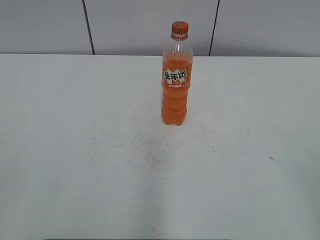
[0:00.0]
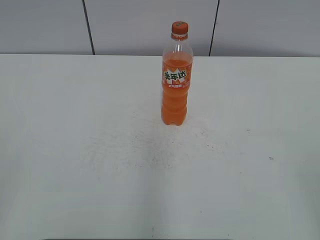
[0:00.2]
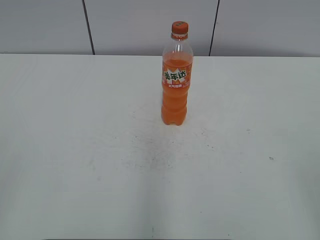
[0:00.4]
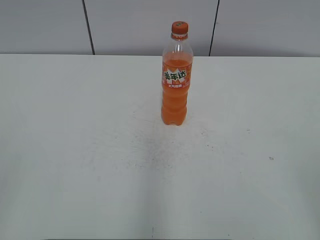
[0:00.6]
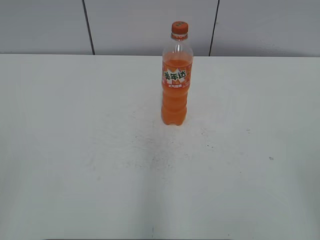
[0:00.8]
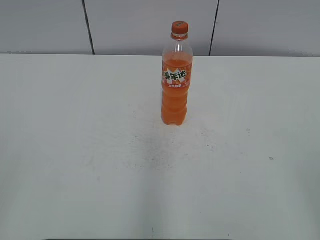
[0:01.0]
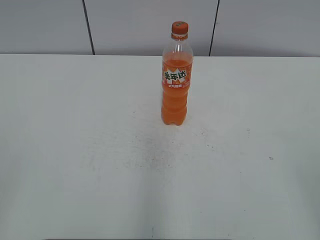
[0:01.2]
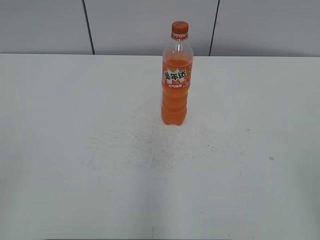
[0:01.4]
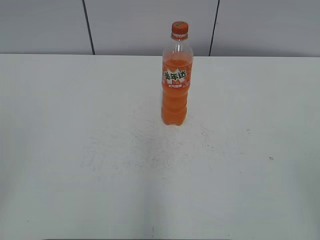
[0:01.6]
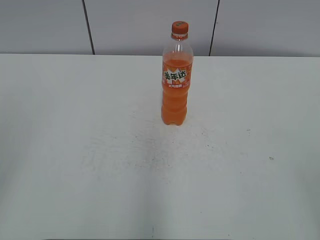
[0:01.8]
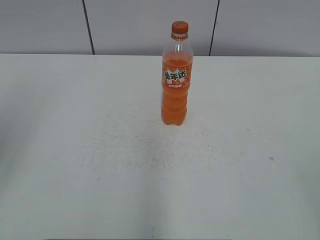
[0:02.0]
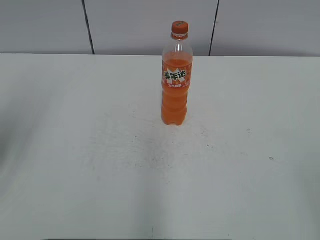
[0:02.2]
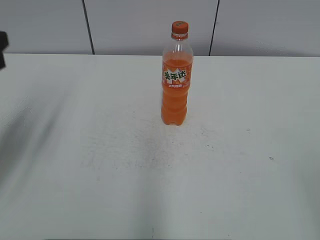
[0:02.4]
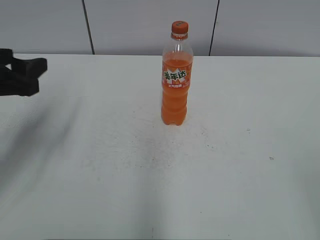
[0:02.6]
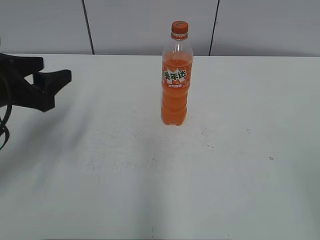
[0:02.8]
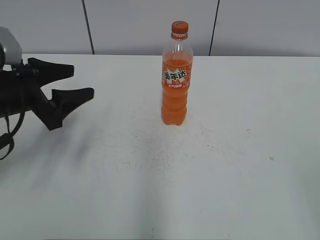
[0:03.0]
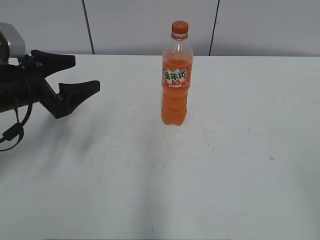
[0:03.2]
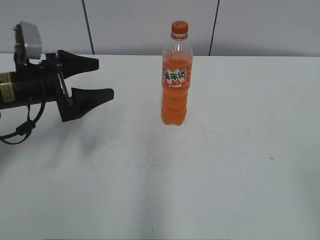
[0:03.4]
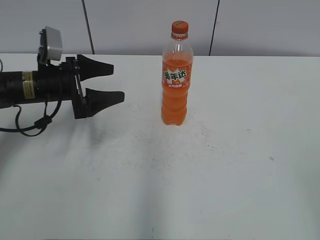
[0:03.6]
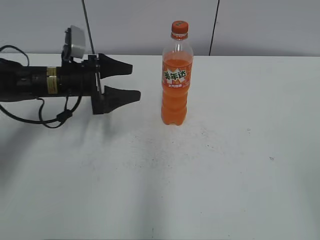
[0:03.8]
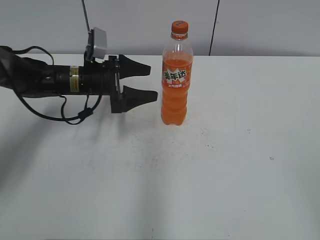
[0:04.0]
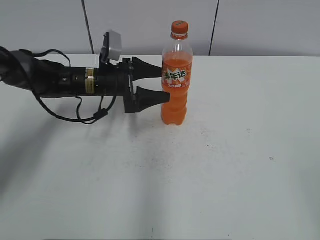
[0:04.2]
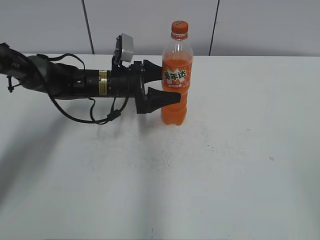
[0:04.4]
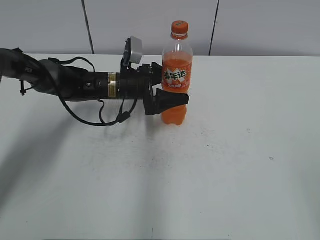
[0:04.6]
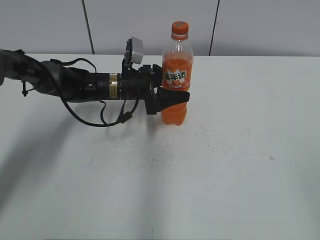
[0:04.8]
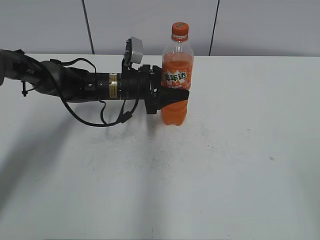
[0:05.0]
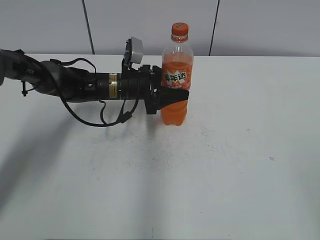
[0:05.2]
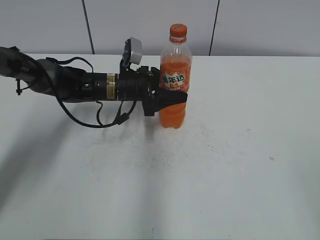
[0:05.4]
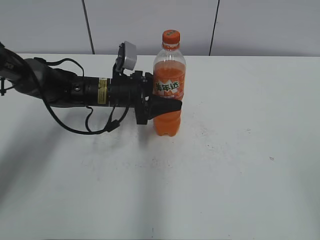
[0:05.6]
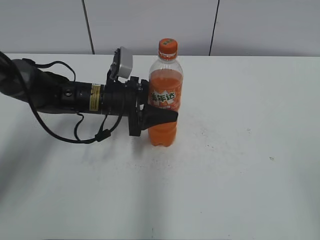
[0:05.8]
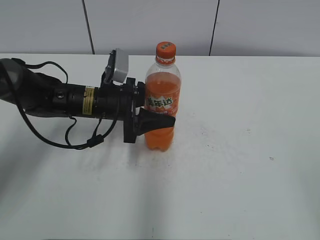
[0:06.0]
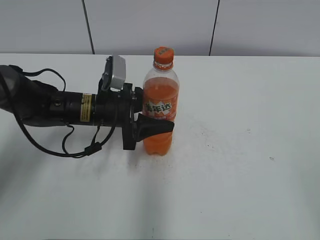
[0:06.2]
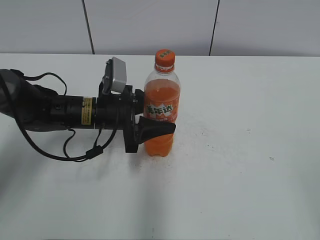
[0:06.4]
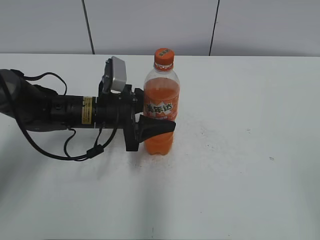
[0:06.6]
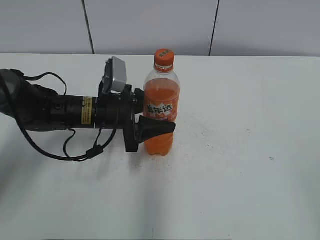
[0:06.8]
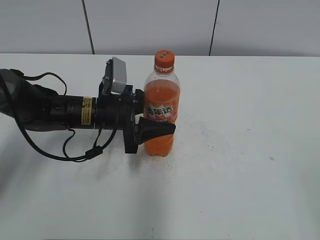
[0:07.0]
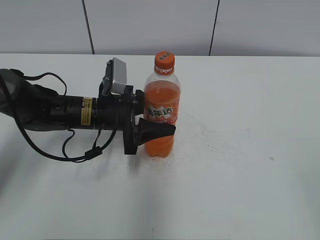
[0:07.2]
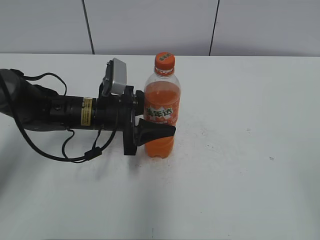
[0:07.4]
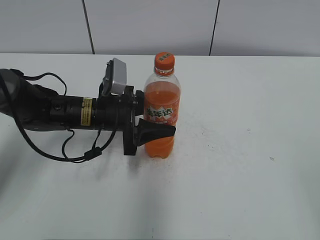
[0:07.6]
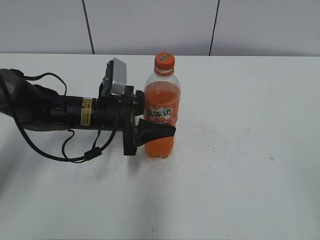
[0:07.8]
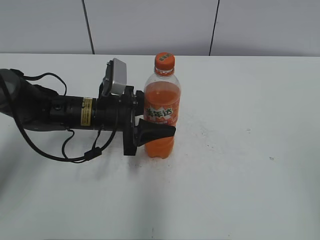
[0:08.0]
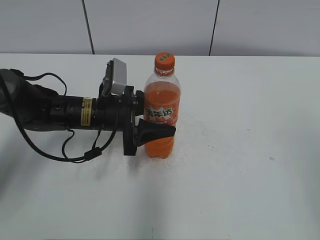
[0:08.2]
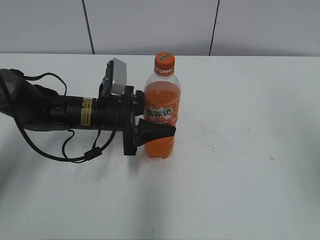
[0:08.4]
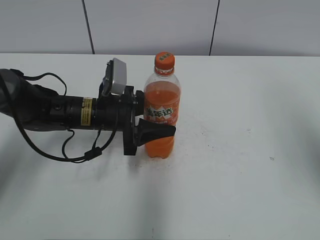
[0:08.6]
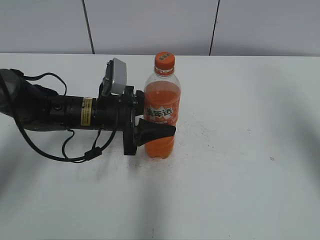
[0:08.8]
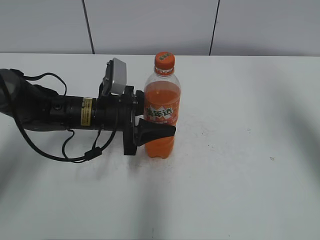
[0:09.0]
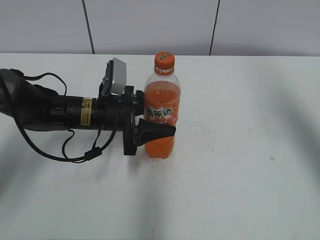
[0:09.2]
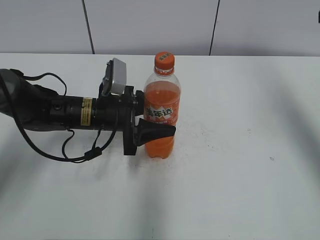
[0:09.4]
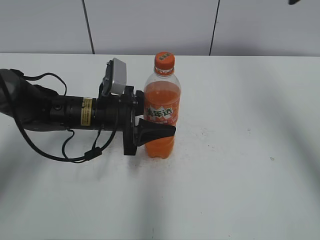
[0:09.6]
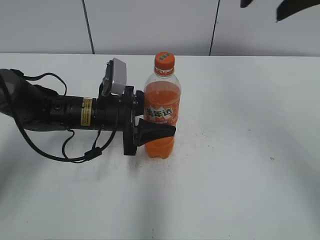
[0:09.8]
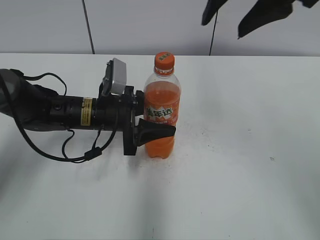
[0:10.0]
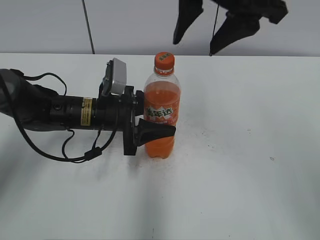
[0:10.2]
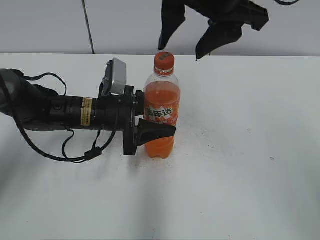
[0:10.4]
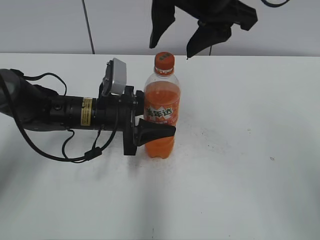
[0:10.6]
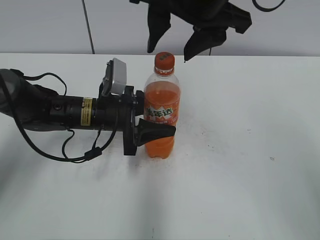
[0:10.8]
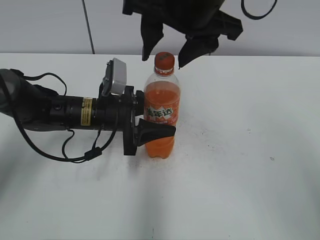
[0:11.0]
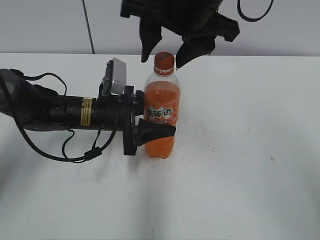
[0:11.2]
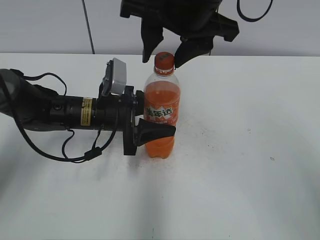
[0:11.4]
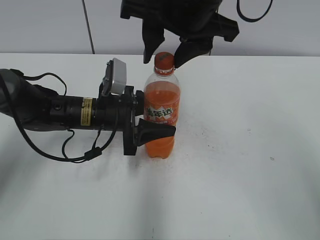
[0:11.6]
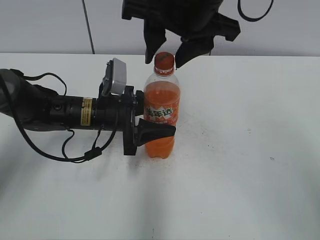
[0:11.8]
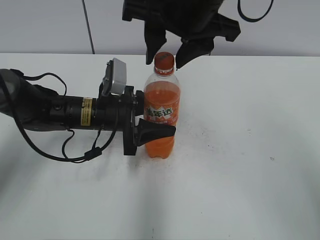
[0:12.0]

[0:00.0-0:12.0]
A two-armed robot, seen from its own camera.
Step, 0:00.0 to 0:05.0: Grab the Mirinda with the left hand.
Step, 0:05.2 to 0:09.4: Move the Mirinda from top to bottom.
0:01.6 to 0:03.0: The left gripper goes approximately 30 cm forward and downward.
0:03.0 to 0:04.4: The left gripper moves forward, to the right and downward, roughly 20 cm, and opens.
0:04.4 to 0:06.0: The left gripper goes approximately 5 cm backward, and closes its fingers.
0:06.0 to 0:07.6: The grippers make only small movements.
0:07.6 to 0:09.0: The right gripper goes about 25 cm forward.
0:09.0 to 0:10.4: The right gripper moves to the left, approximately 20 cm.
0:10.4 to 0:12.0: The grippers make only small movements.

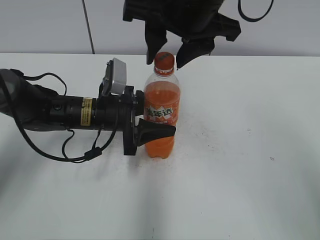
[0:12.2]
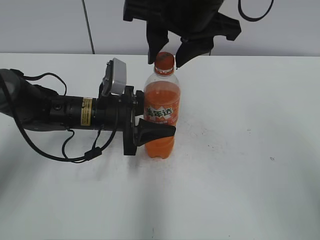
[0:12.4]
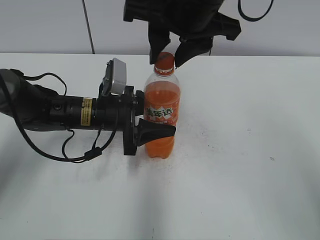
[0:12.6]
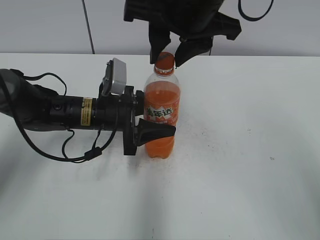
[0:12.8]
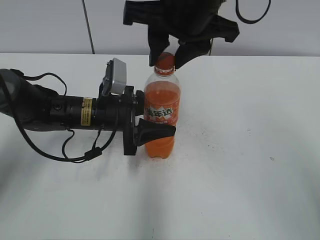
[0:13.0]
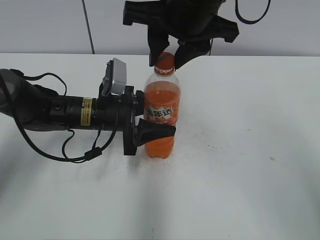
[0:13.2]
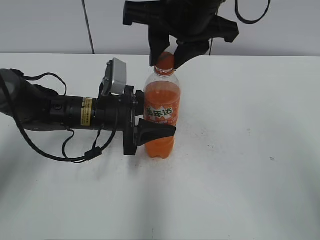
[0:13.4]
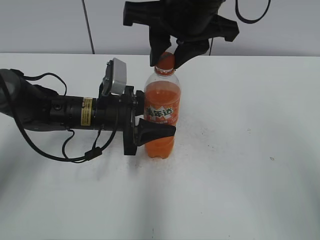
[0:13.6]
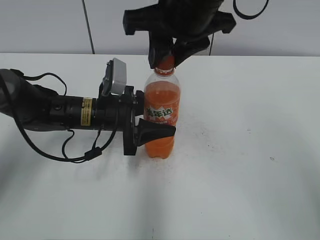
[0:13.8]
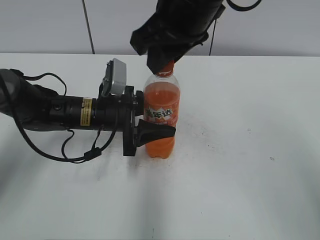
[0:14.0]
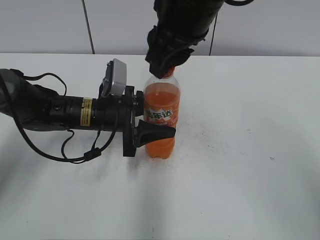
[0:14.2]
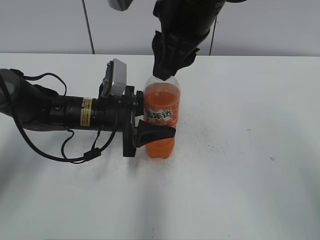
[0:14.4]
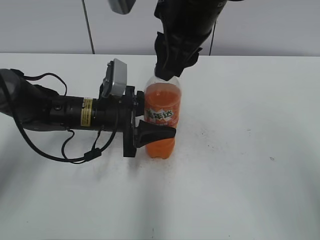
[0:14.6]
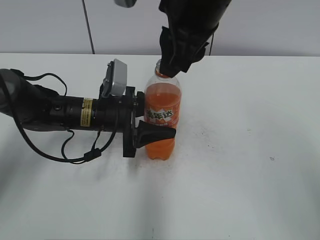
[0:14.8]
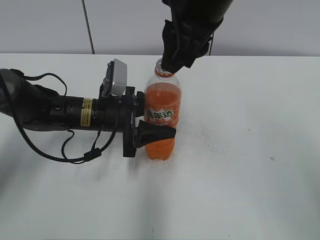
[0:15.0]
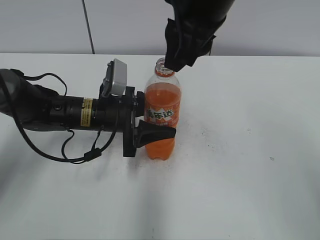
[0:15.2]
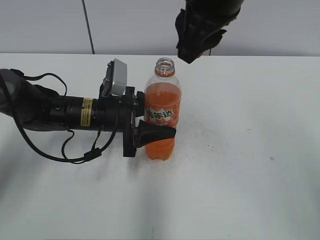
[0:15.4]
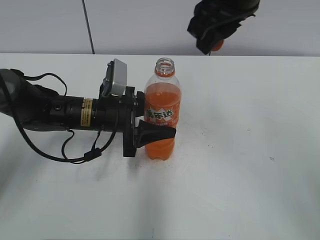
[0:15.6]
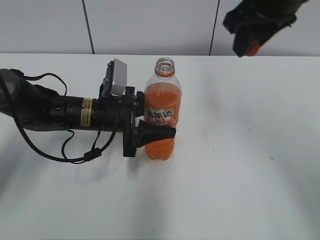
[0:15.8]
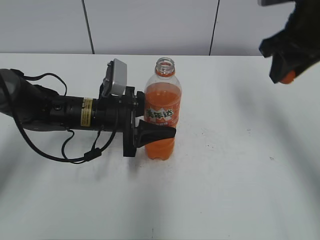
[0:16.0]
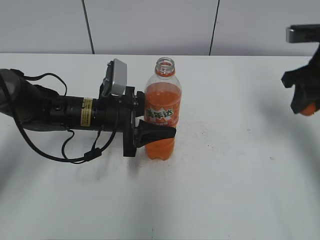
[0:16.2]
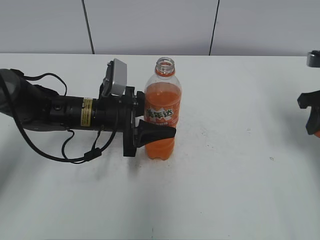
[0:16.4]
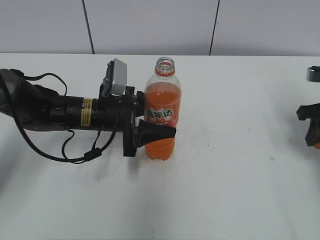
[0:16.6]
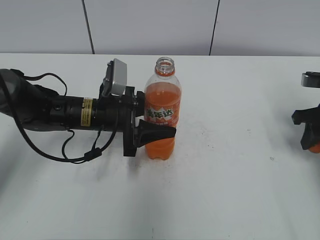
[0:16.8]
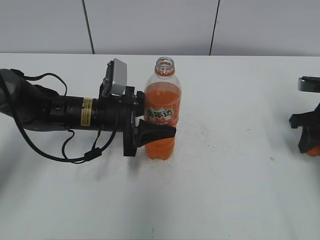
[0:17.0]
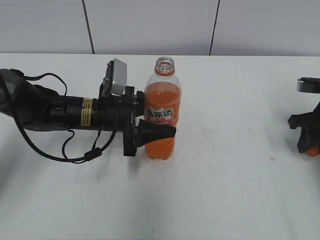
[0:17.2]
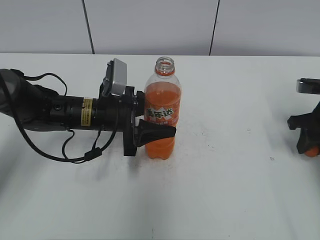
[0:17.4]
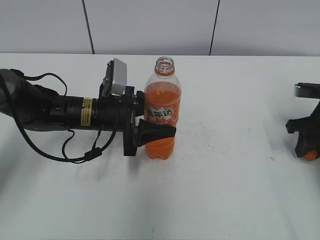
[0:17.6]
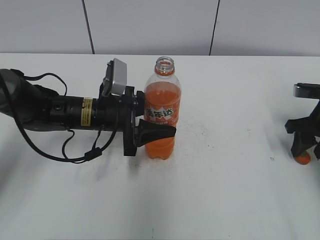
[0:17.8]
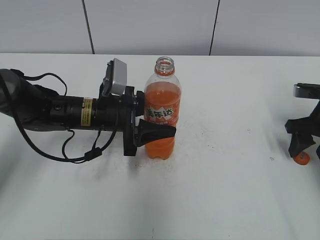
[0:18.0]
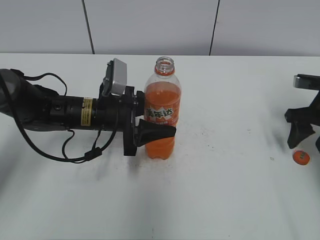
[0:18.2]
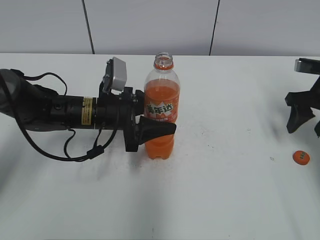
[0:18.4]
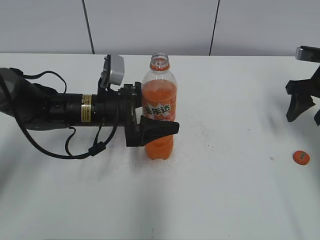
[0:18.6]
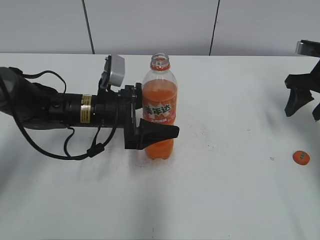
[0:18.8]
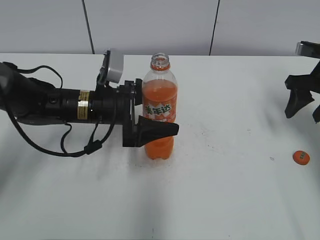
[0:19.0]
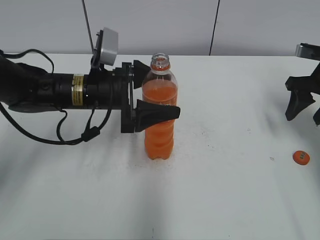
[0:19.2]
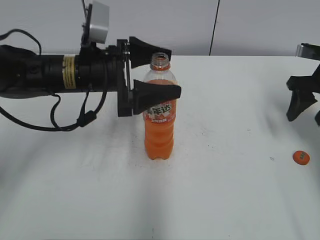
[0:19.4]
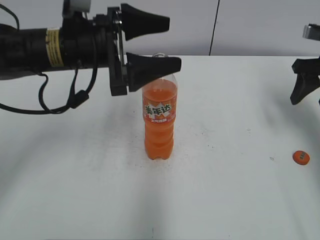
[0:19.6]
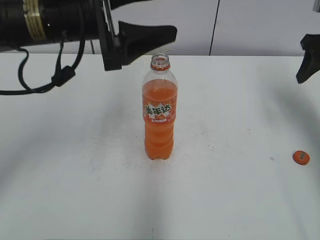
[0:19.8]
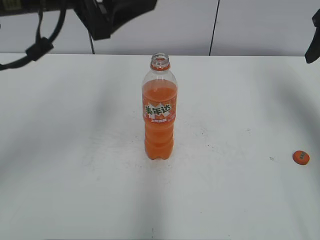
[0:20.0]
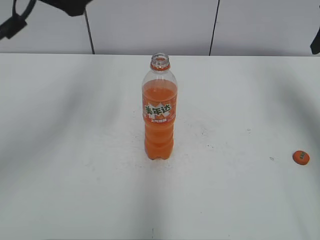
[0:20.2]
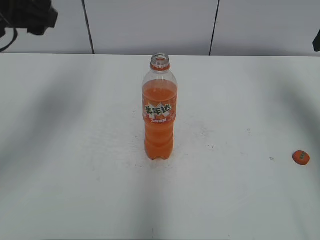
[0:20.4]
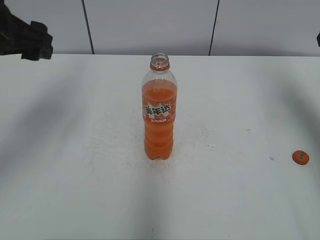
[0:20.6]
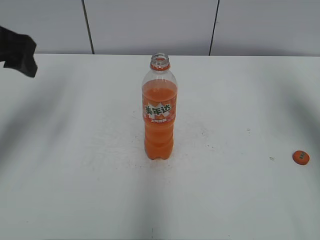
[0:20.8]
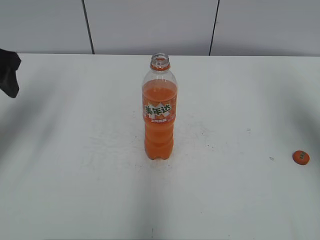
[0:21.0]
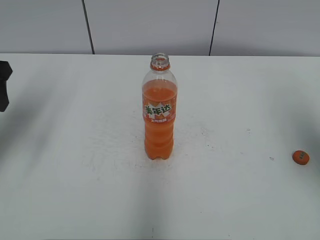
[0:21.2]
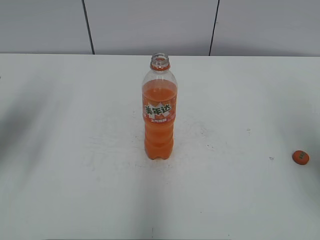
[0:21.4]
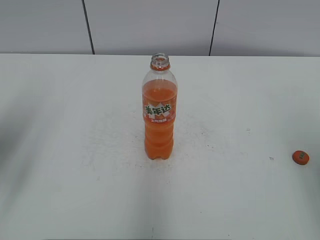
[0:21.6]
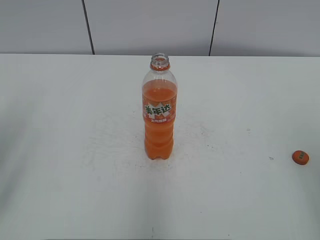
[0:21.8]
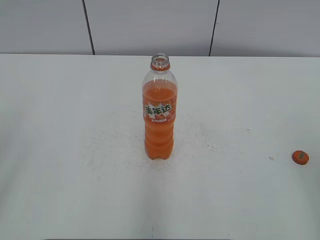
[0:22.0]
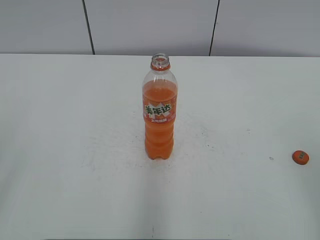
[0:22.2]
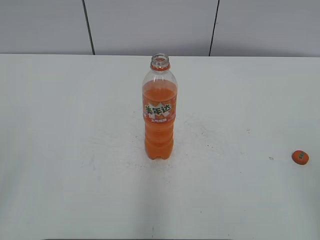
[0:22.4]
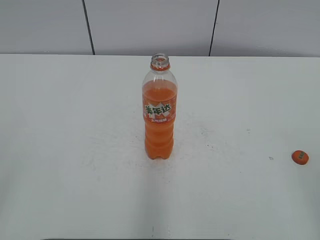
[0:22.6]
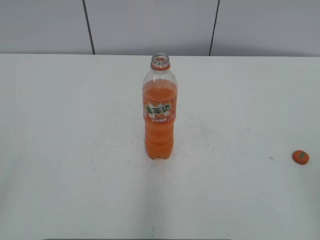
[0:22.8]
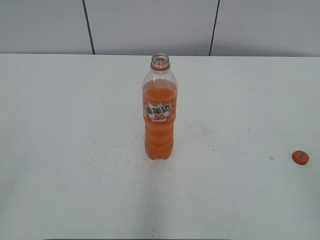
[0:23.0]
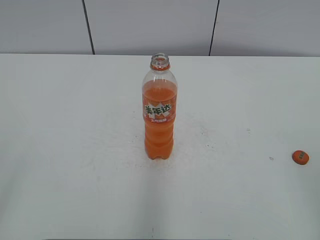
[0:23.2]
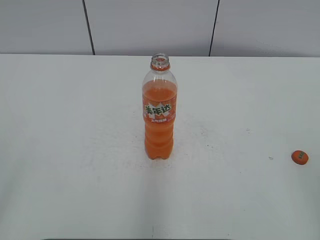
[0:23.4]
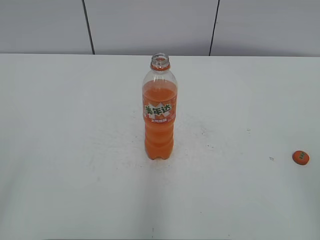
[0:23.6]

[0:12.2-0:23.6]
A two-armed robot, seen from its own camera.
Step, 0:14.6 to 0:18.0: Place the bottle cap on the right.
0:12.2 to 0:13.6: The right gripper closes up.
0:15.0 to 0:16.4: The right gripper travels to the right and downward by about 30 cm.
0:16.4 to 0:17.8: The right gripper is displaced downward by some 10 cm, and opens.
0:17.8 to 0:19.4: The two grippers go some 5 cm upward. The left gripper opens its fingers. The right gripper opens up.
0:19.4 to 0:20.8: The right gripper travels upward by some 15 cm; the left gripper heads to the left and upward, covering roughly 20 cm.
0:20.8 to 0:22.2: Both grippers travel together backward, roughly 25 cm.
